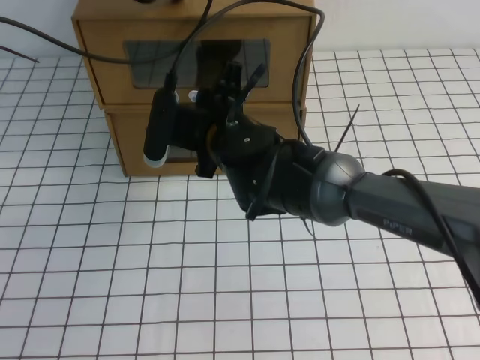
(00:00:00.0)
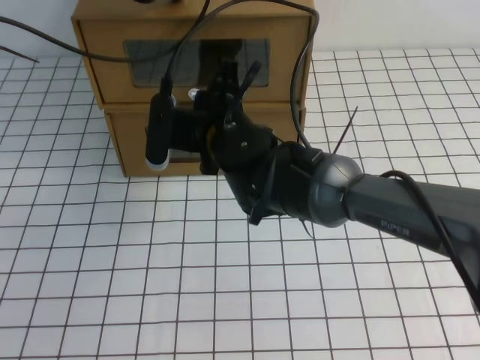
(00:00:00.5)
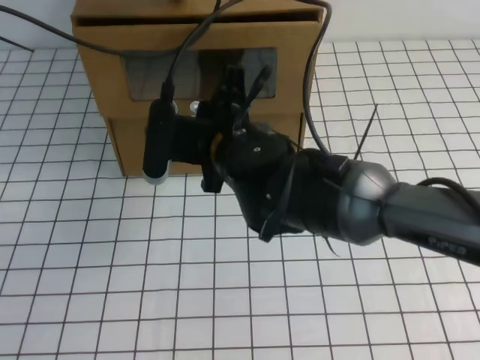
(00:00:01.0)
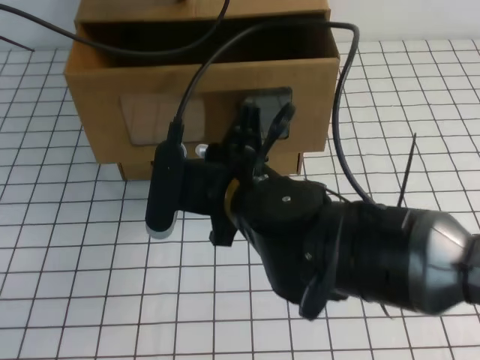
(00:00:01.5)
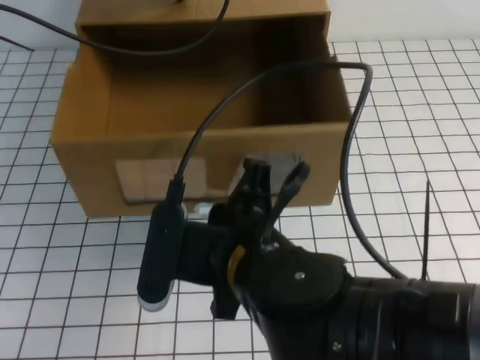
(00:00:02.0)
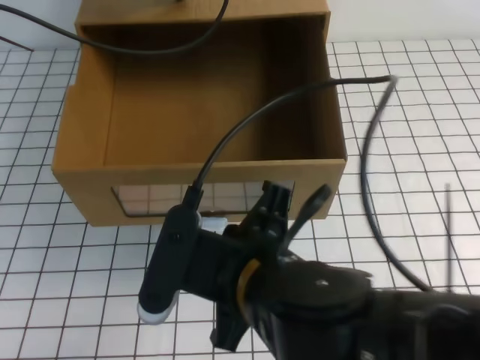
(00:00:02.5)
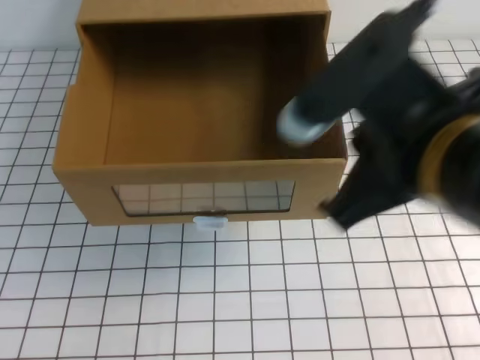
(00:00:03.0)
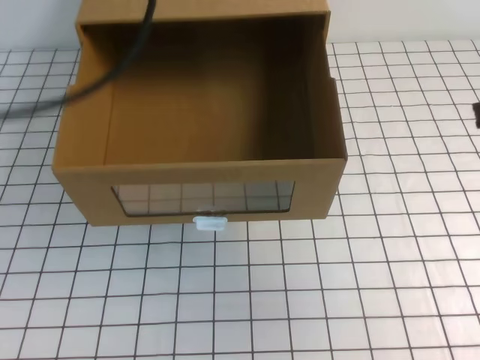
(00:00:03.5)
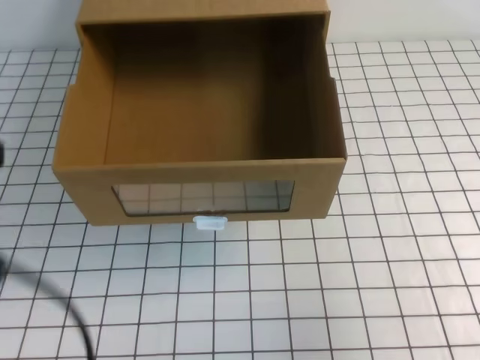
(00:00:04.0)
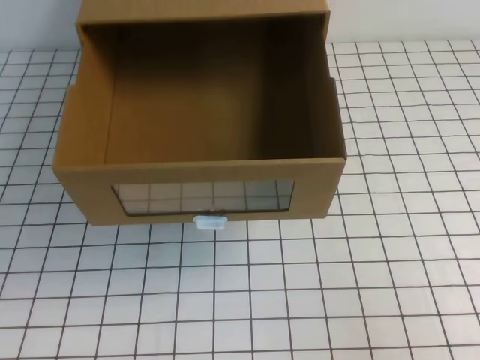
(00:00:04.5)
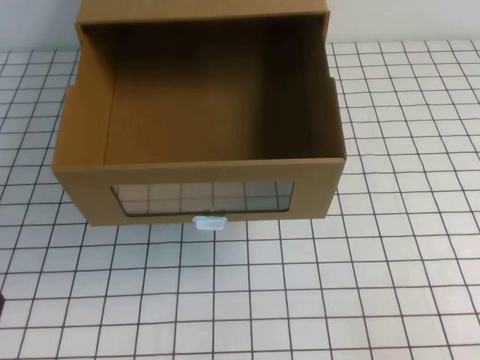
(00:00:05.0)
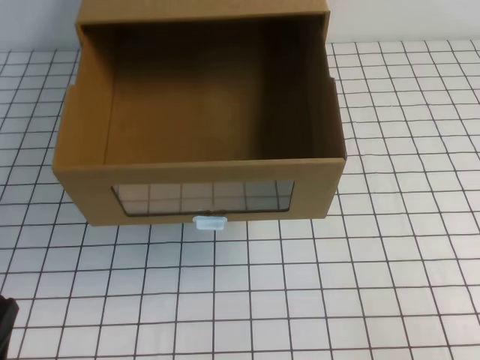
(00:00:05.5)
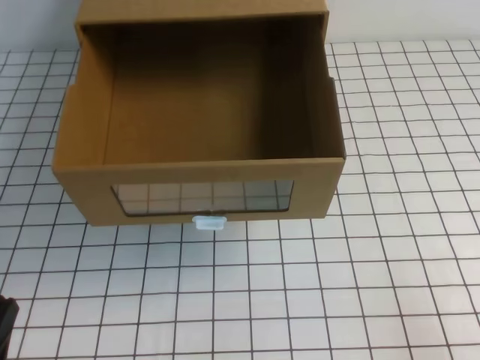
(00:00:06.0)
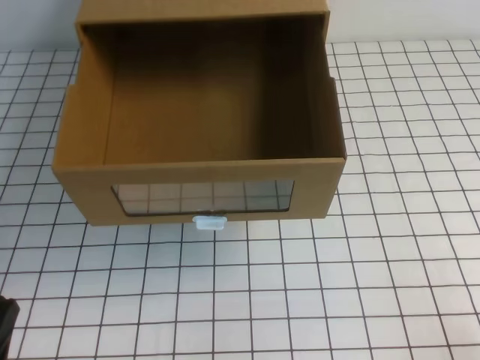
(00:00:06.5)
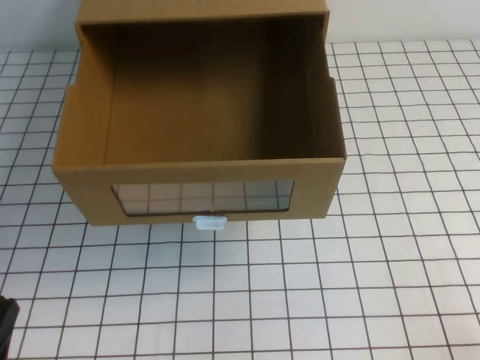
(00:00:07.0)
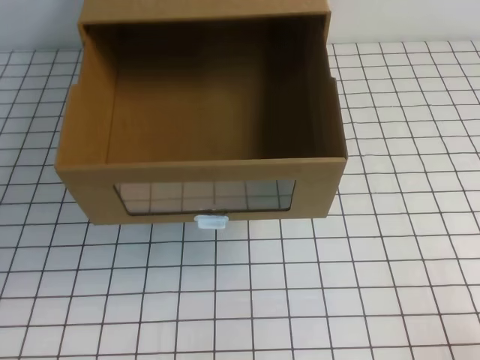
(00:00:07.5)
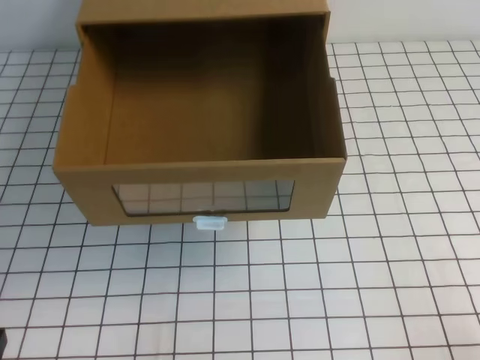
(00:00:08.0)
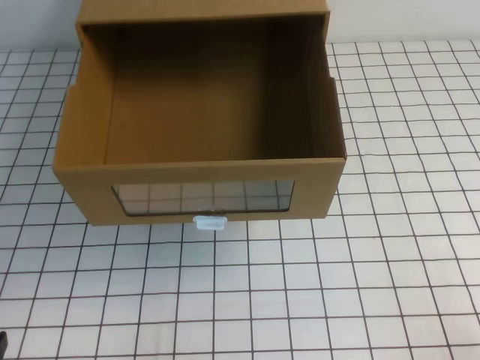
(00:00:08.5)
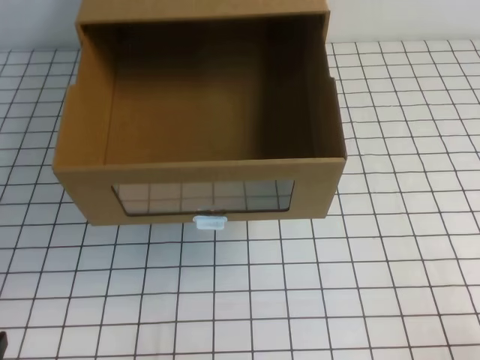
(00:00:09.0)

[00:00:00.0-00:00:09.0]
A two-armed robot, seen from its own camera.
Task of the whole recording: open the shoebox on the white tablecloth.
Step, 00:00:00.0 to 00:00:09.0: Open the shoe box.
00:00:00.0 to 00:00:02.0: The right gripper goes some 20 cm backward, and closes up.
00:00:02.0 to 00:00:04.5: The left gripper heads backward, covering about 40 cm. The right gripper travels to the right by about 30 cm.
00:00:04.5 to 00:00:07.0: The left gripper goes approximately 10 cm downward.

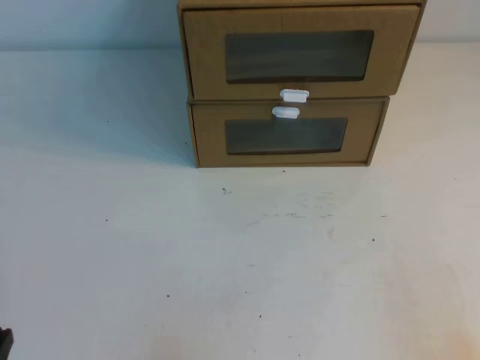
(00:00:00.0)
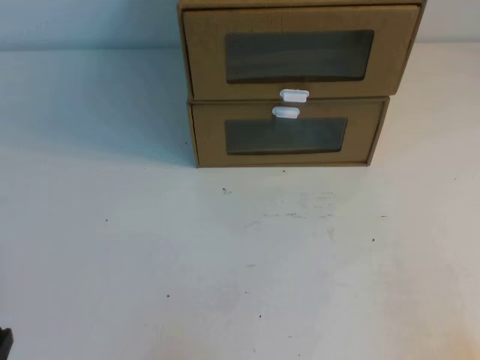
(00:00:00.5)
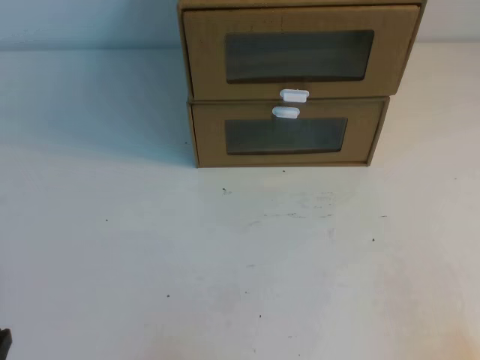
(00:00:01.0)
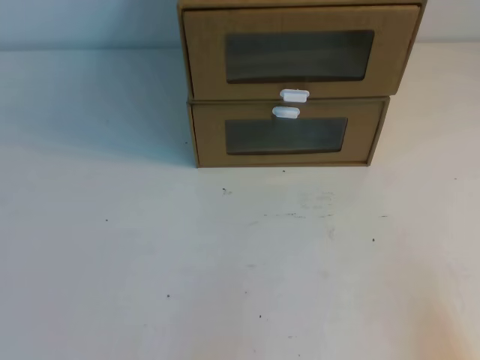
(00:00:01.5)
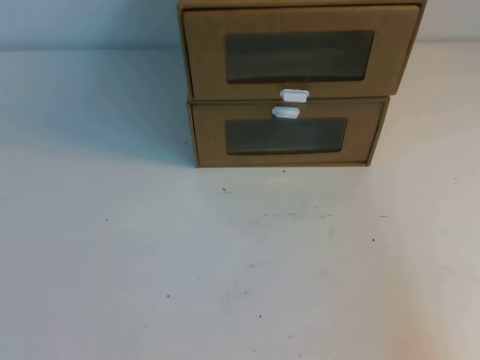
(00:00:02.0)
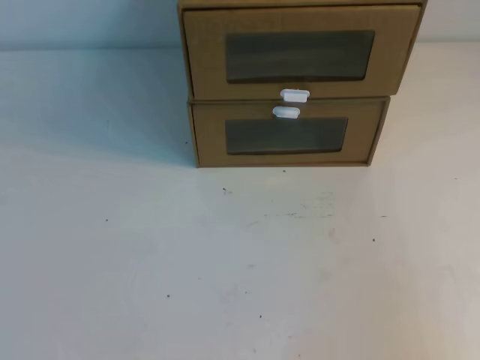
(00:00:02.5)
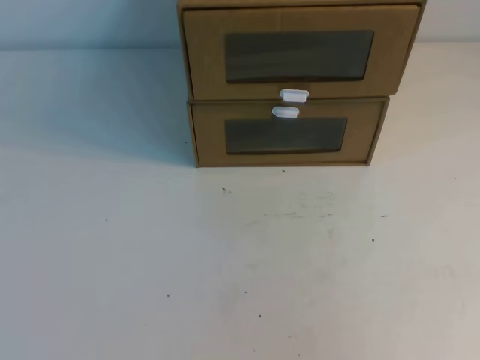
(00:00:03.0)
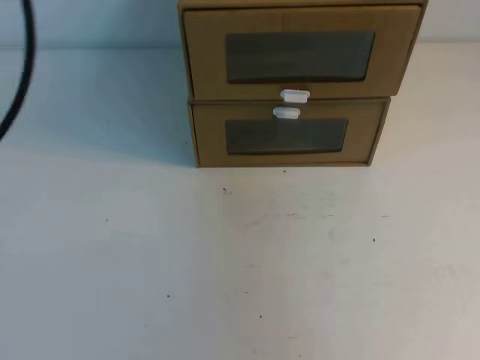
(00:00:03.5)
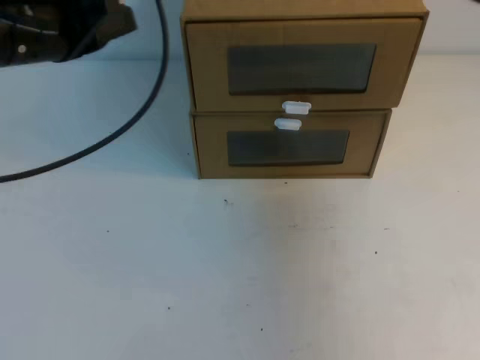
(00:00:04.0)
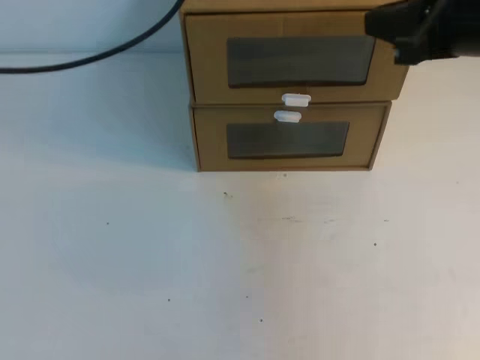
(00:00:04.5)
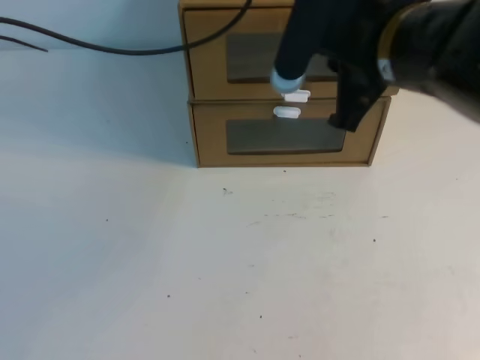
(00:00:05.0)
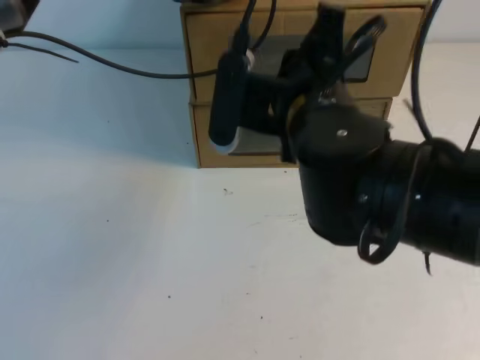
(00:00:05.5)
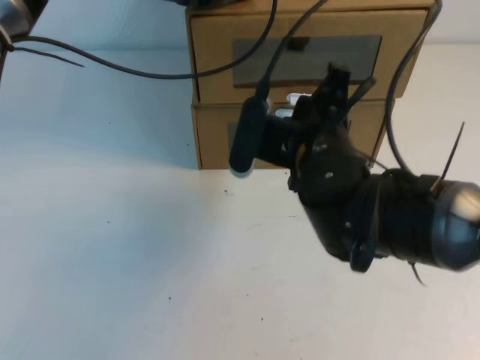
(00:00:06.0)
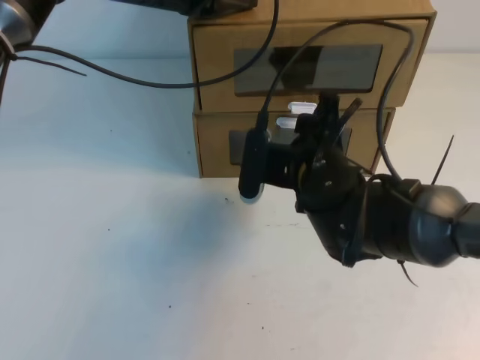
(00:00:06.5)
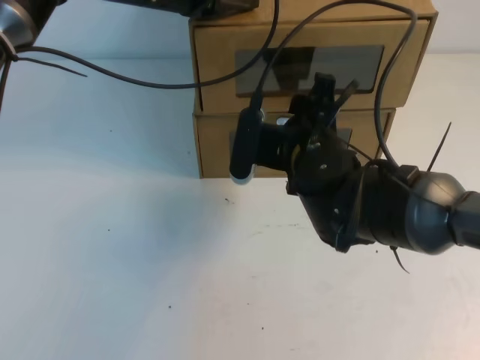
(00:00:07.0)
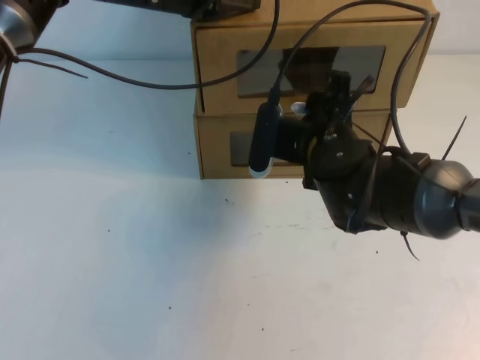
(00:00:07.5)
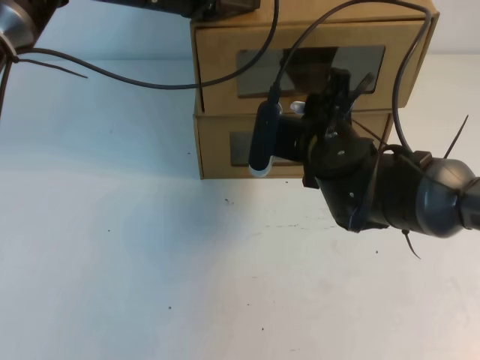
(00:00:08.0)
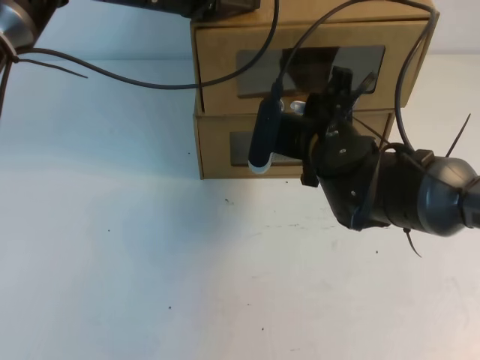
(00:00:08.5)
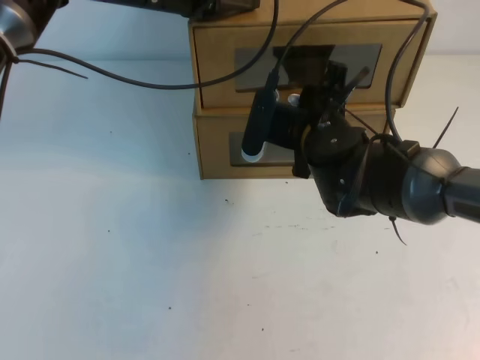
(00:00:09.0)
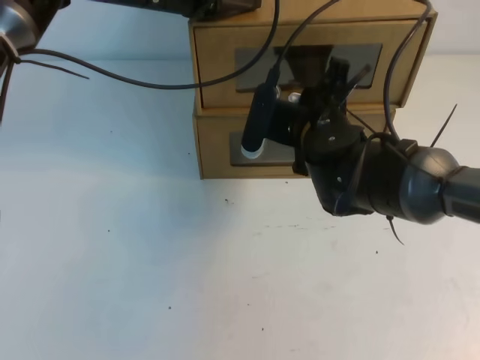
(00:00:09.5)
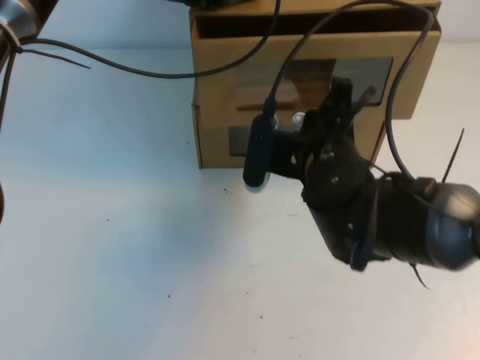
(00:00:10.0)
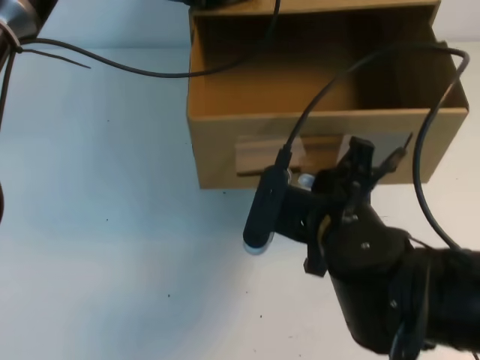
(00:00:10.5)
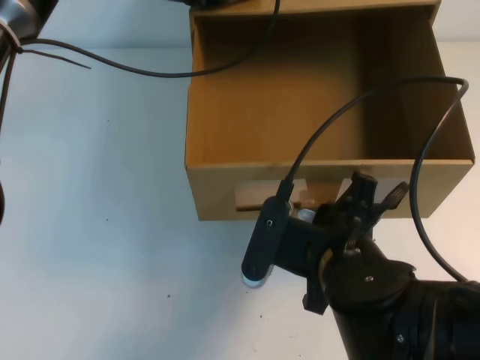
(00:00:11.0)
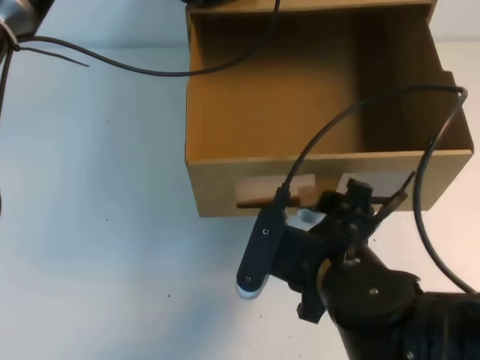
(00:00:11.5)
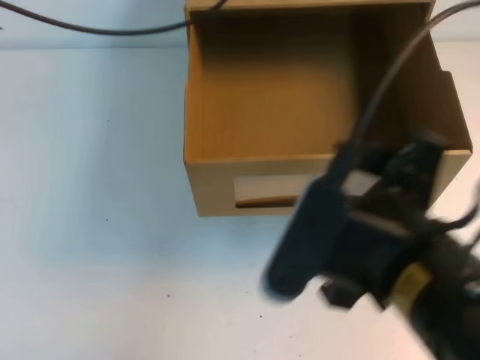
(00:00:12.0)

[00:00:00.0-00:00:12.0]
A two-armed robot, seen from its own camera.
Task of the whole recording: open the shoebox on the table.
00:00:02.0 to 00:00:04.0: The two grippers go about 30 cm forward and upward.
00:00:04.0 to 00:00:06.0: The right gripper heads to the left and downward, covering approximately 25 cm, while the left gripper goes about 20 cm forward and to the right.
00:00:06.0 to 00:00:08.0: The right gripper goes about 5 cm forward.
00:00:08.0 to 00:00:10.0: There are only small adjustments of the grippers.
00:00:10.0 to 00:00:12.0: The right gripper goes approximately 20 cm backward and upward, and opens. Meanwhile the left gripper travels upward and backward by about 10 cm.

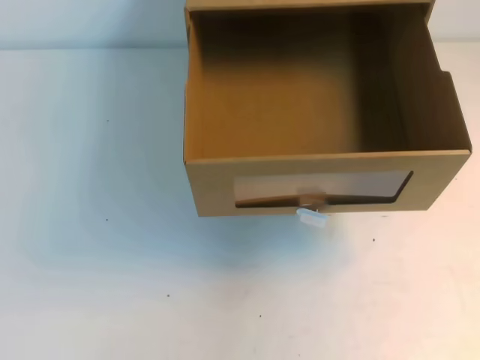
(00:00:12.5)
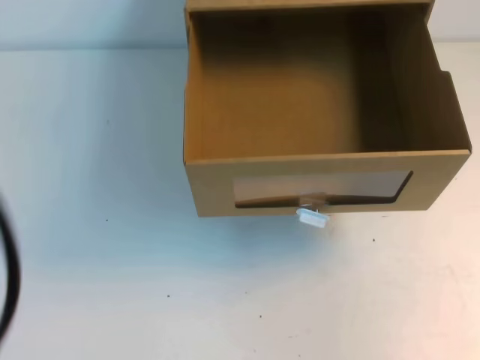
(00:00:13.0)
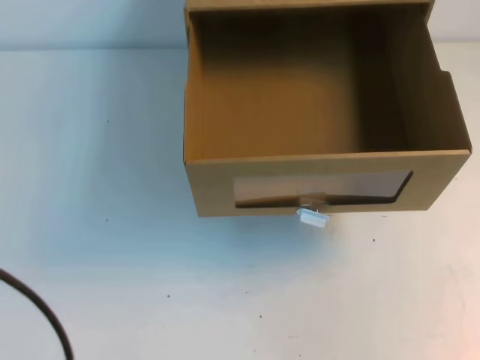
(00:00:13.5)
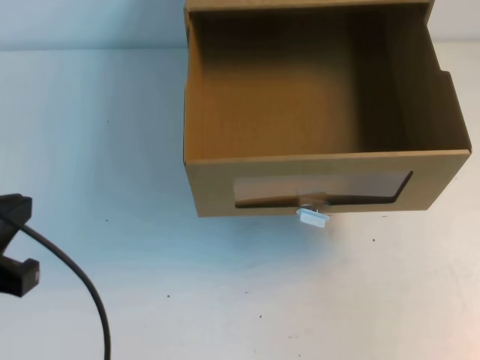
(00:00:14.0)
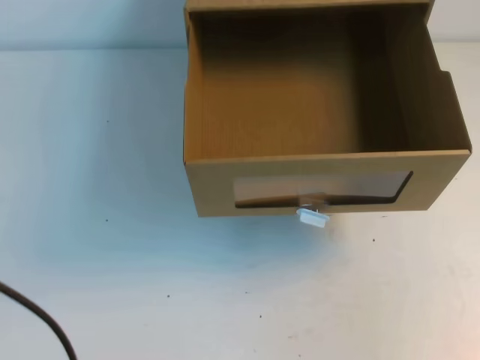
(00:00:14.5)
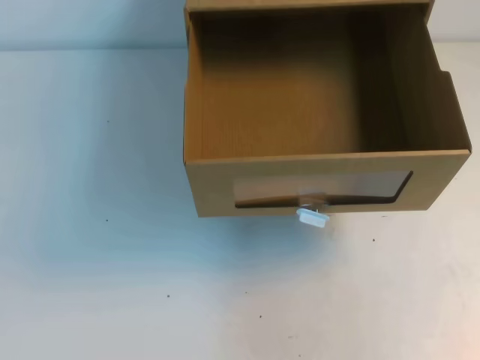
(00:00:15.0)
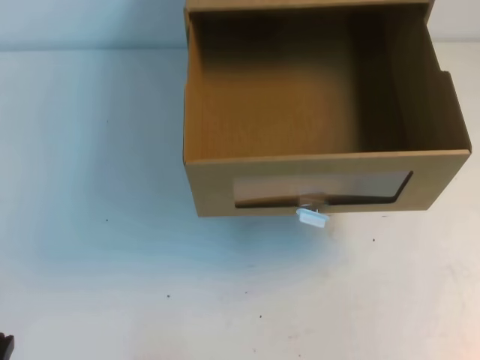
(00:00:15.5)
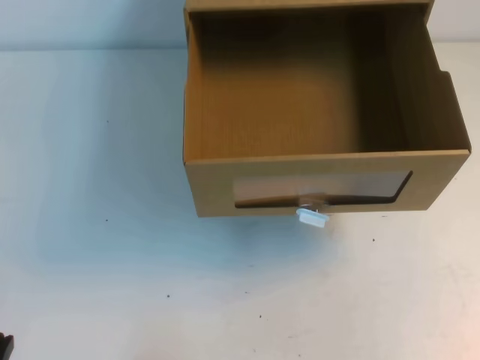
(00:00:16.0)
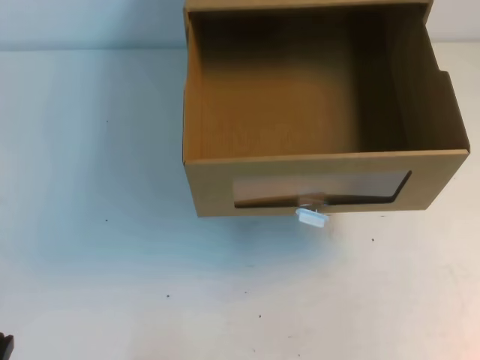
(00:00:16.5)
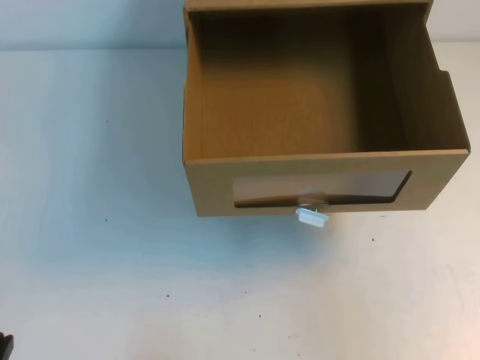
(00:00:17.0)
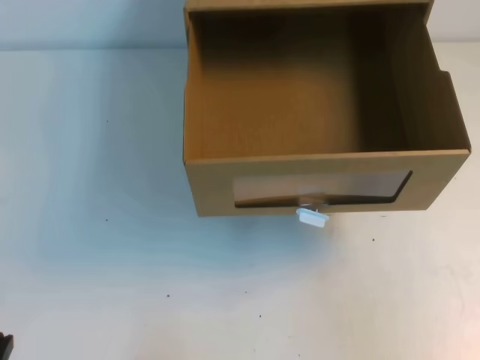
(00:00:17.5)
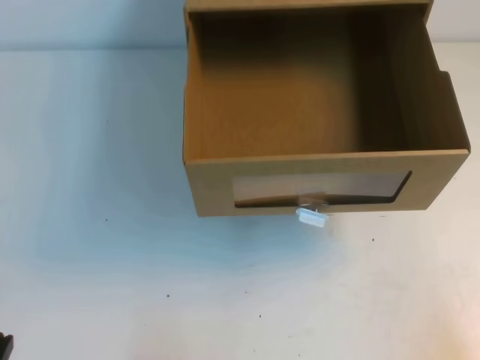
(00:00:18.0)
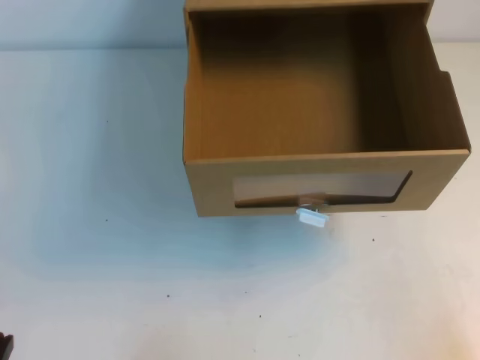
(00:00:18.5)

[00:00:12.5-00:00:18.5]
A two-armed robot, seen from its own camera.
Task of the whole recording: open the shoebox on the table.
Step, 00:00:12.5 to 00:00:18.5: Open the shoe box.
00:00:12.5 to 00:00:14.5: The left gripper is displaced downward and backward by about 30 cm. Meanwhile the right gripper shifts roughly 10 cm to the right and downward.
00:00:14.5 to 00:00:16.5: The left gripper heads downward, covering about 15 cm.
